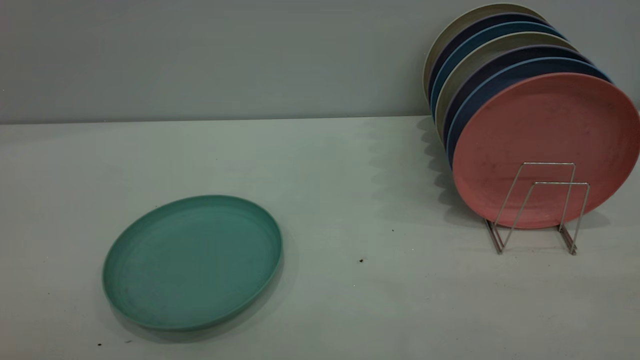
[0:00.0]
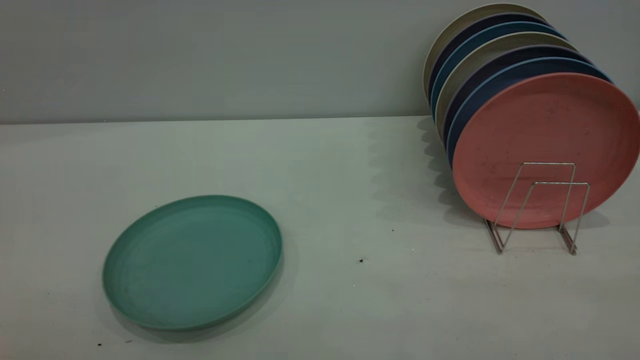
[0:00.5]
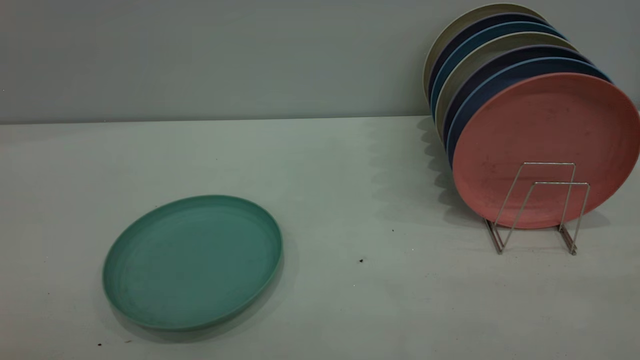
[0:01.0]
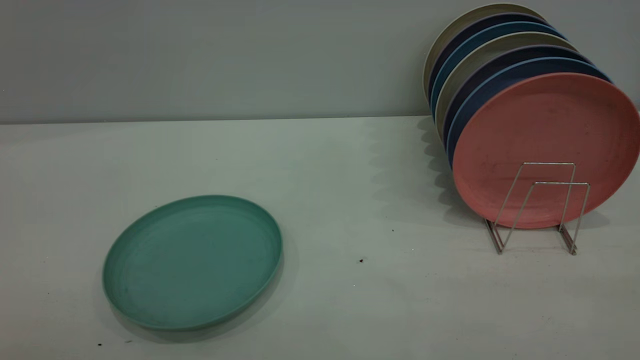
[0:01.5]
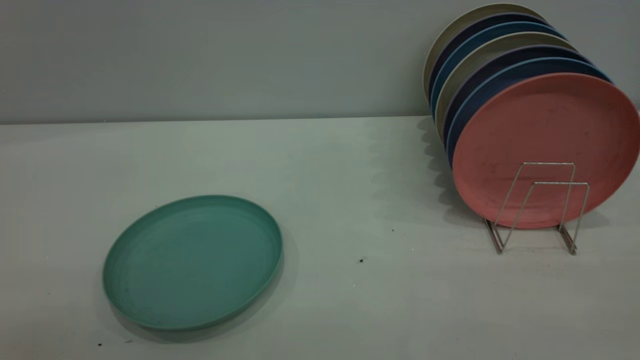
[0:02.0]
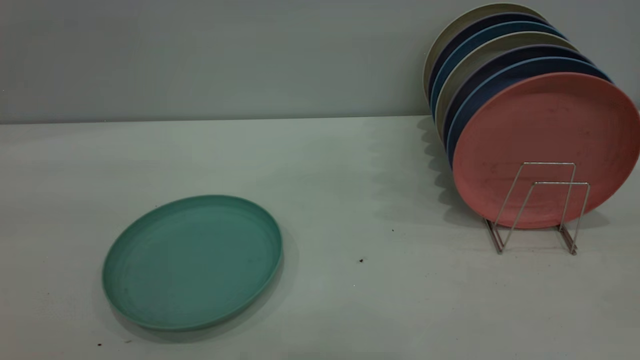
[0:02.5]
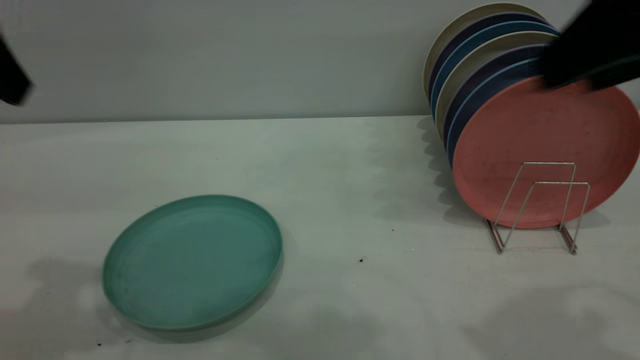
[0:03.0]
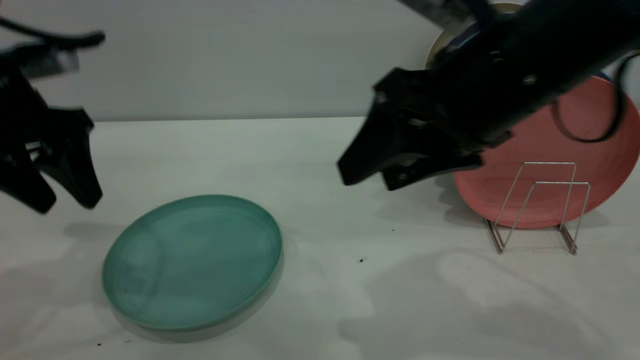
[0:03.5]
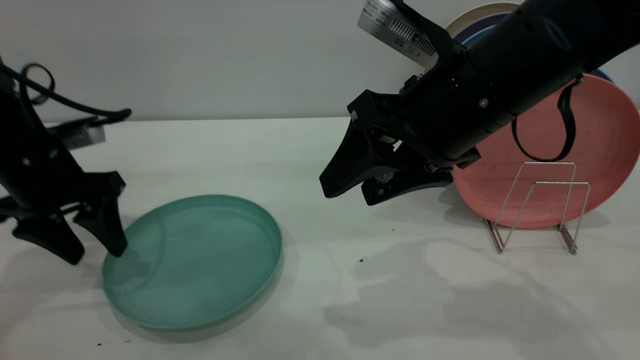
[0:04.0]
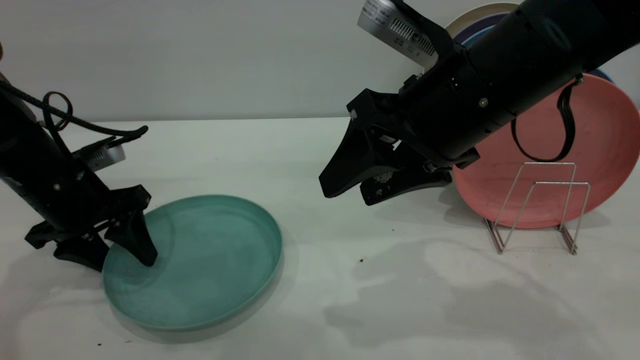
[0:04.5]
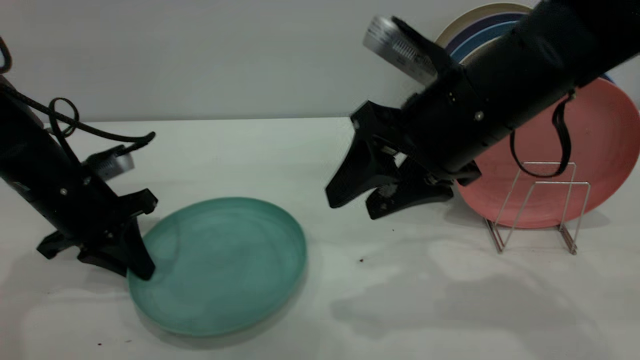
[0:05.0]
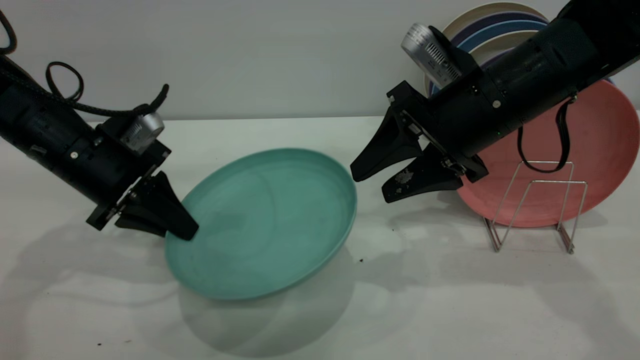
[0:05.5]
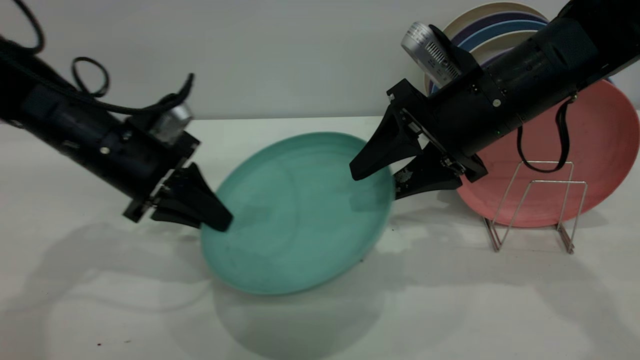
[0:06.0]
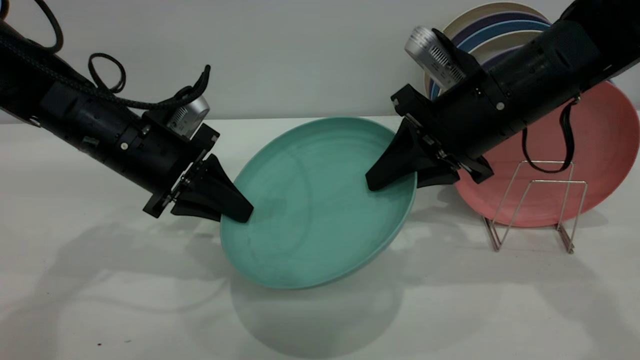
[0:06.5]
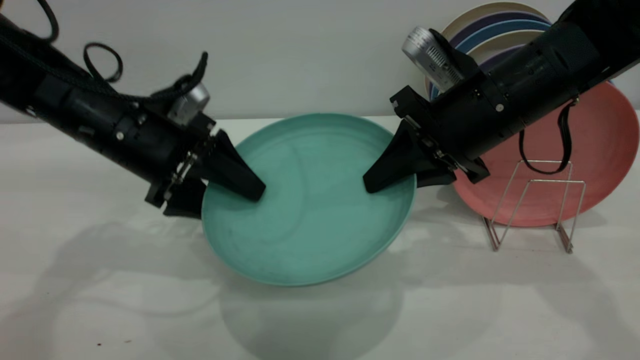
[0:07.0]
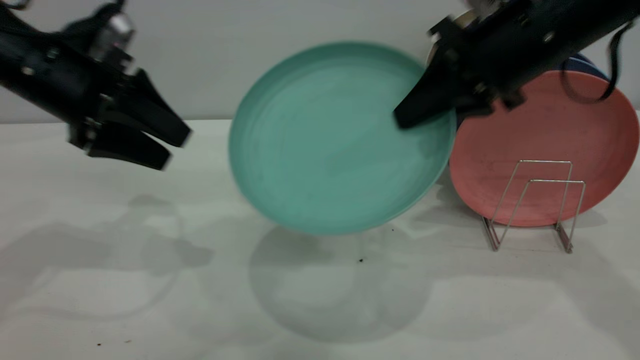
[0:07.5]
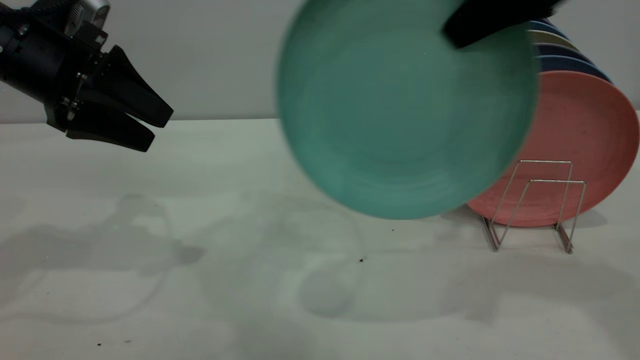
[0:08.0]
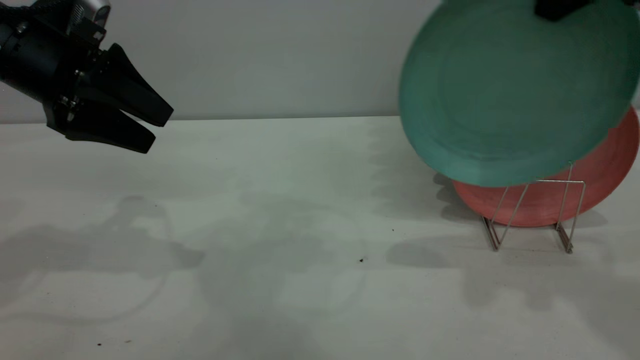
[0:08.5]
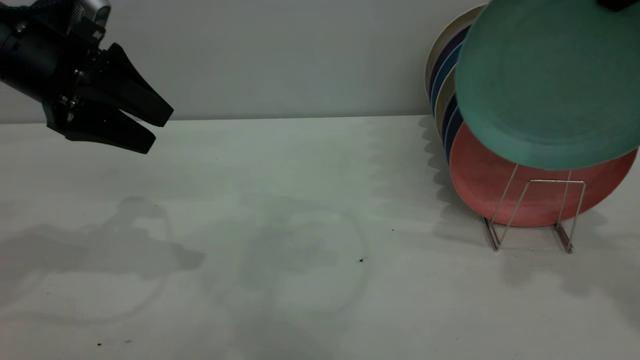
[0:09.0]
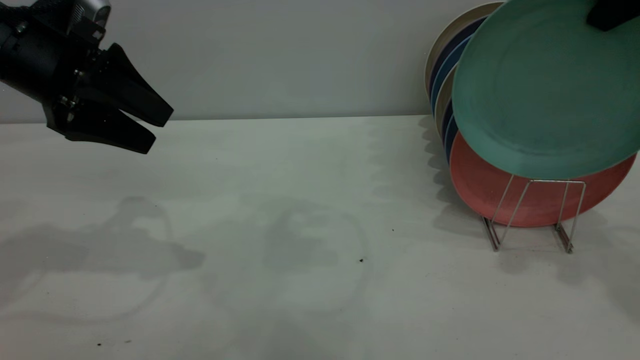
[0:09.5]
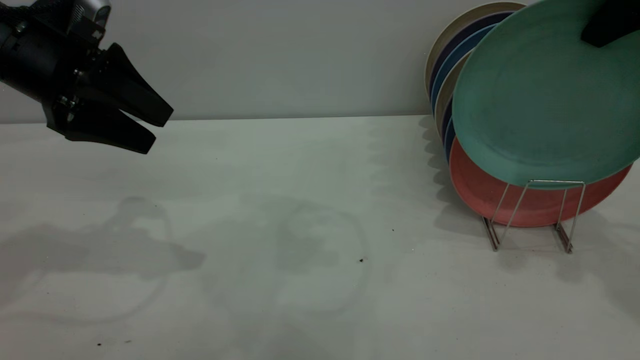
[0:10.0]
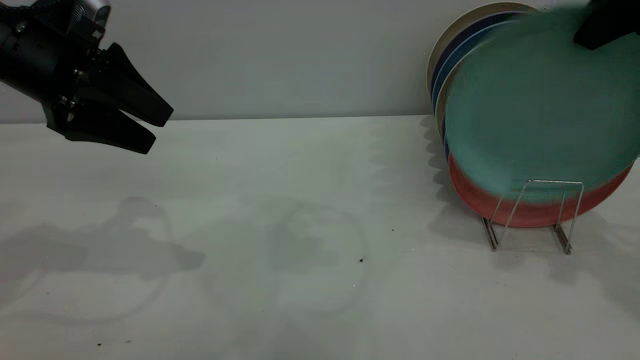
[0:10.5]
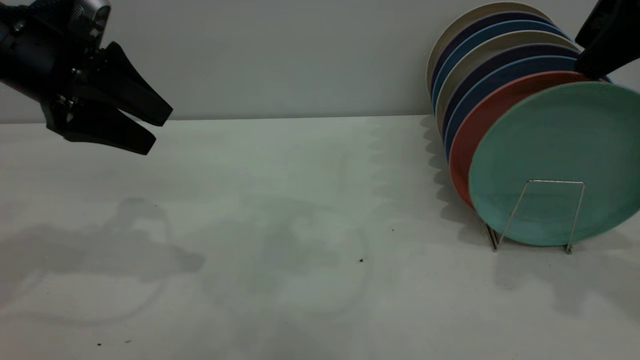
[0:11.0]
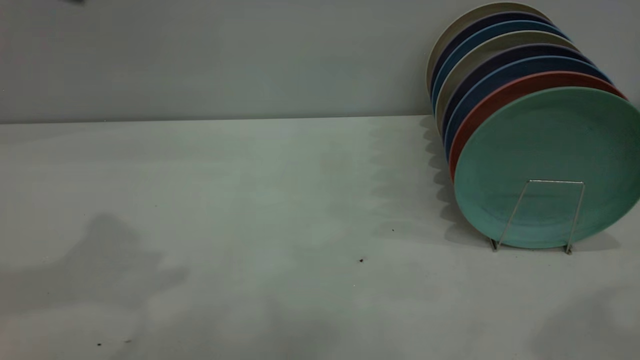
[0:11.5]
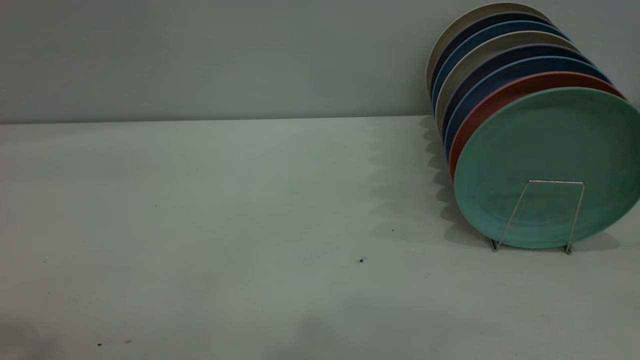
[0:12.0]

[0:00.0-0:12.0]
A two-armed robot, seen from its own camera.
Task of the whole recording: the left gripper grasp the green plate, the left gripper pass the green plate to the right gripper, and the right gripper place the green plate on the plate rack.
Step, 0.0 to 5.0 s: Pick up the plate with the left gripper.
Step, 5.5 to 7.5 s: Pass the plate from the left gripper to the right gripper.
Step, 8.0 to 11.0 s: Place the plate on the shelf.
2.0 to 4.0 s: The right gripper heads forward, to the left and downward, covering roughly 40 cm, and opens up. Meanwhile the left gripper goes about 40 cm forward and downward.
4.0 to 6.0 s: The left gripper travels to the right by about 10 cm, and closes; the right gripper travels forward by roughly 5 cm.
6.0 to 8.0 s: The left gripper moves upward and to the left, approximately 10 cm, and opens its fingers. The right gripper heads upward, covering roughly 15 cm, and closes up.
8.0 to 10.0 s: The right gripper shifts approximately 10 cm to the right.
10.0 to 12.0 s: The right gripper moves backward, roughly 25 cm, and opens. Meanwhile the left gripper heads upward and backward, covering roughly 35 cm.

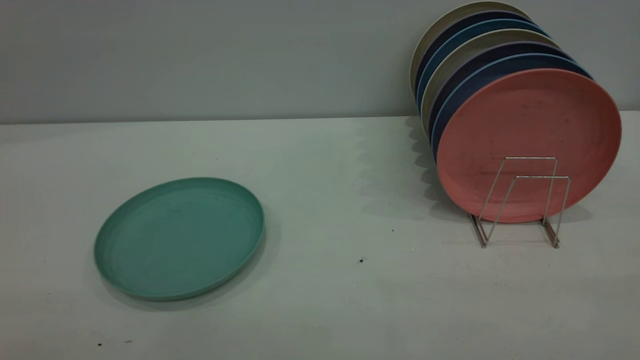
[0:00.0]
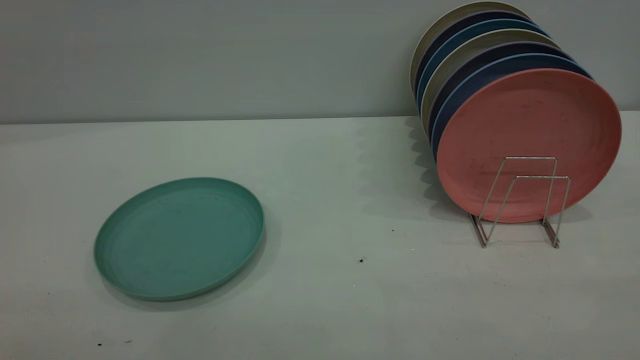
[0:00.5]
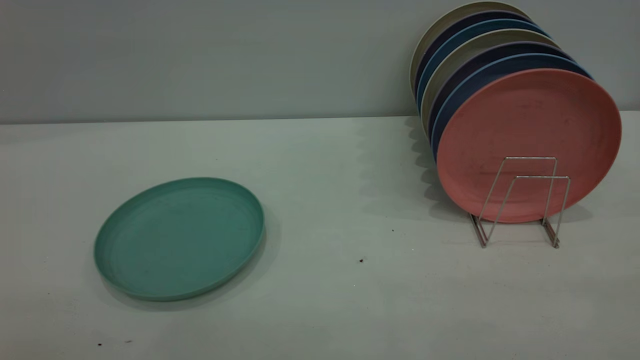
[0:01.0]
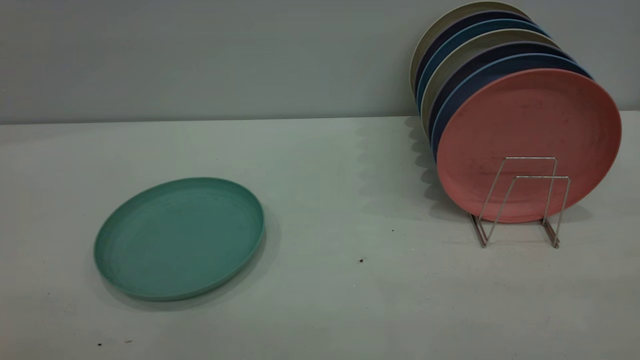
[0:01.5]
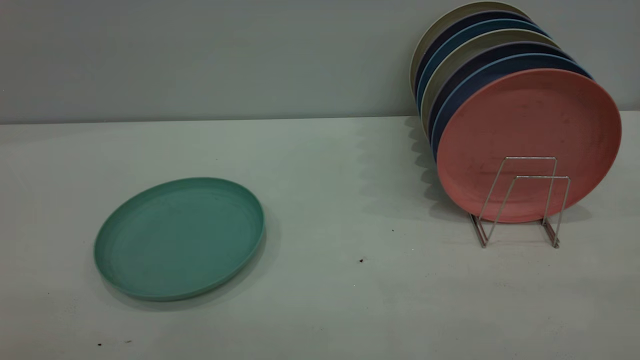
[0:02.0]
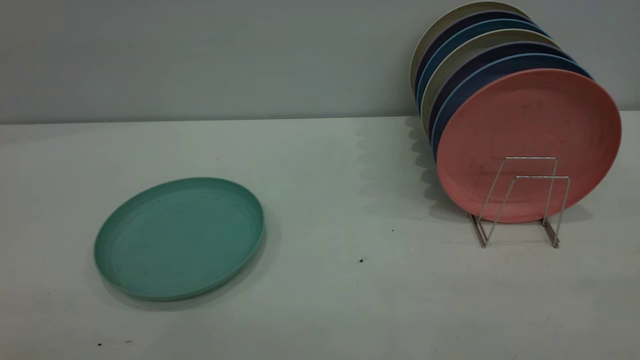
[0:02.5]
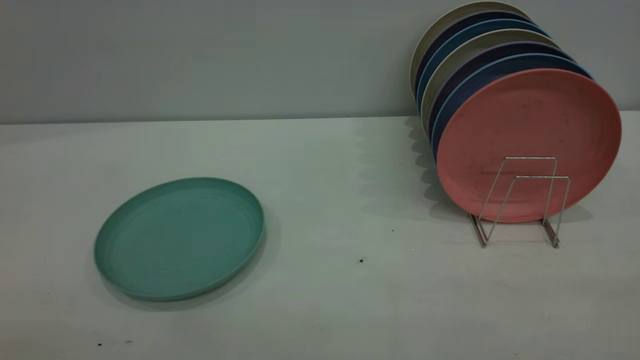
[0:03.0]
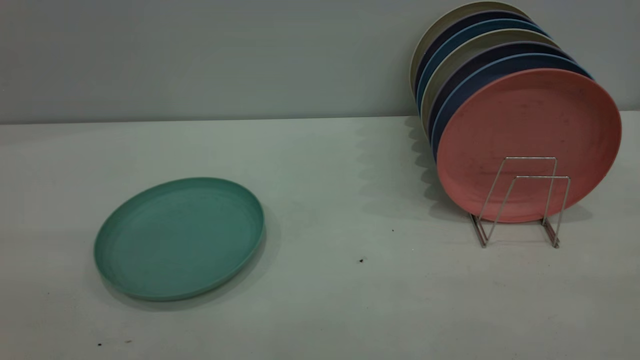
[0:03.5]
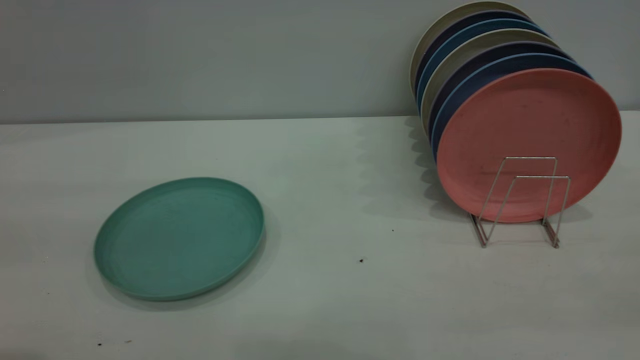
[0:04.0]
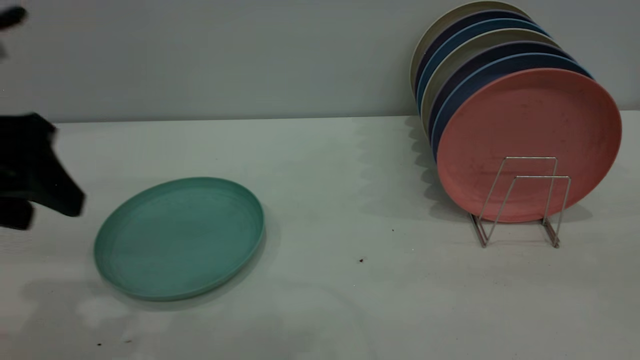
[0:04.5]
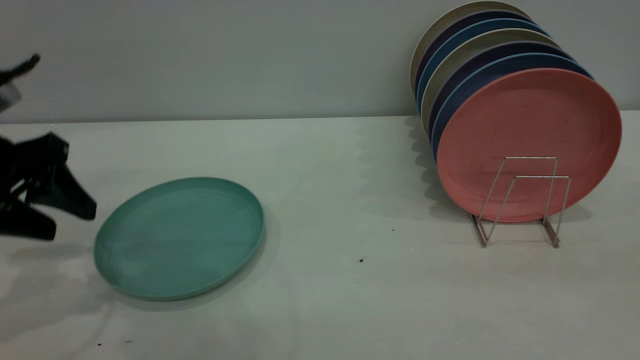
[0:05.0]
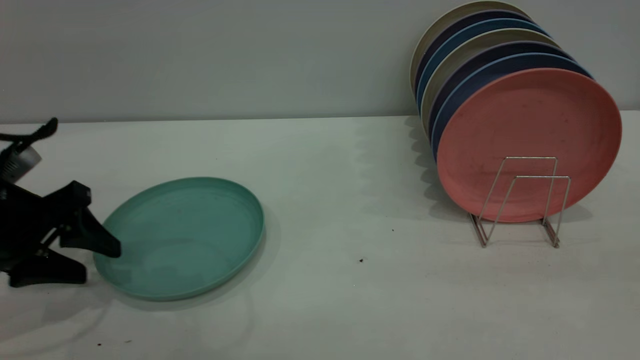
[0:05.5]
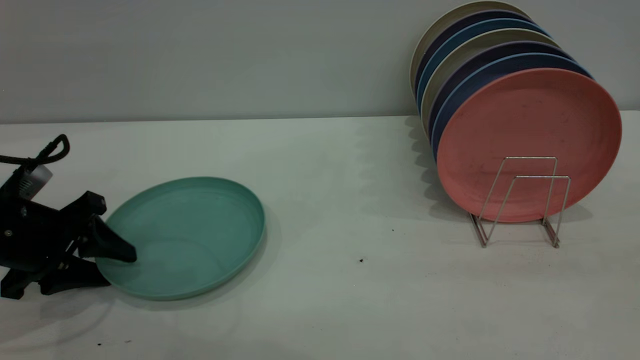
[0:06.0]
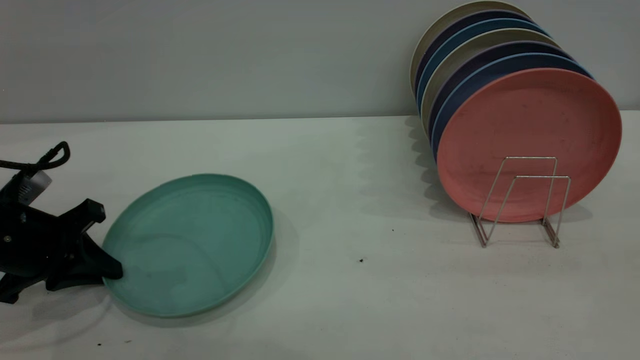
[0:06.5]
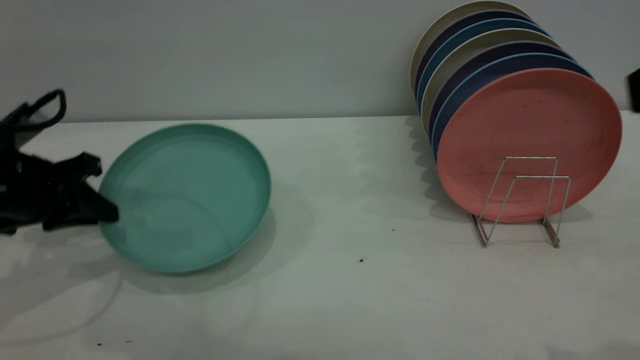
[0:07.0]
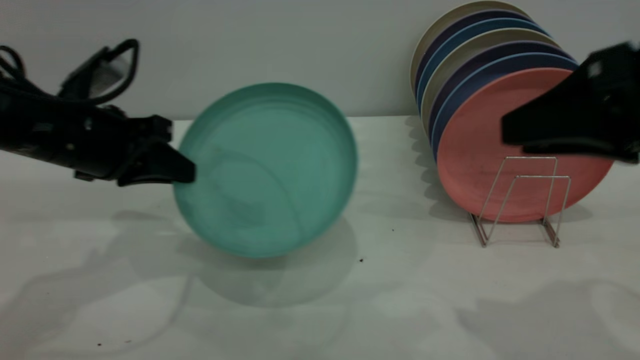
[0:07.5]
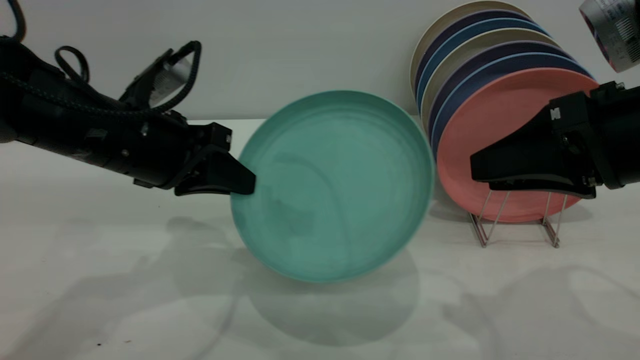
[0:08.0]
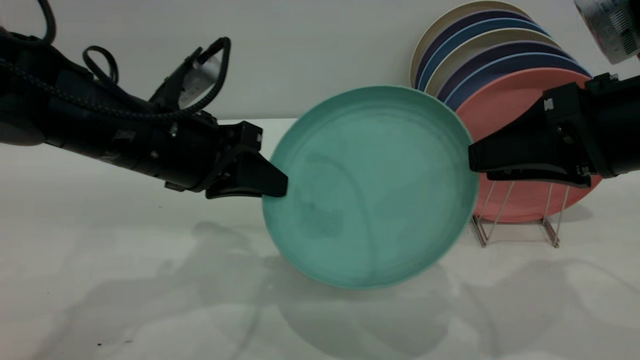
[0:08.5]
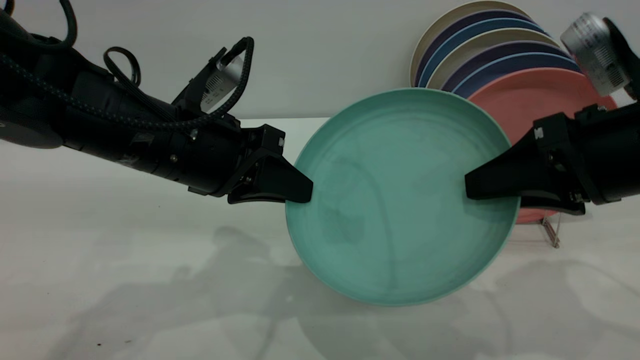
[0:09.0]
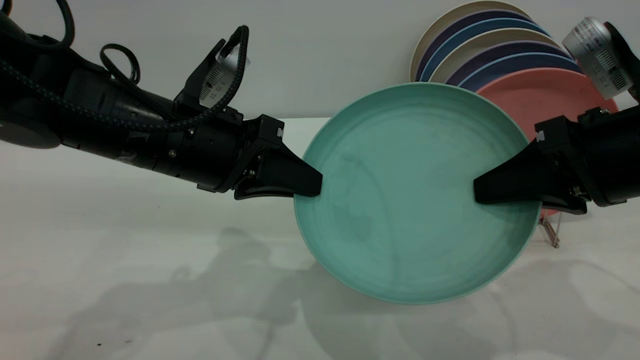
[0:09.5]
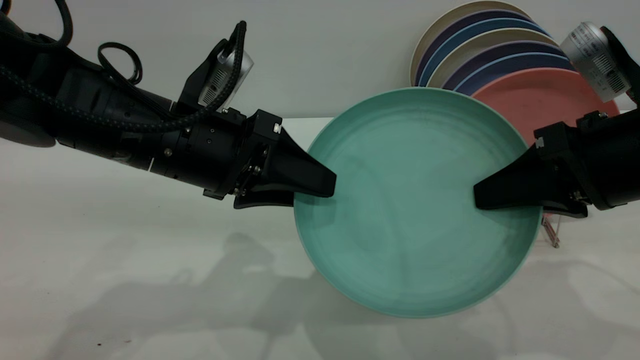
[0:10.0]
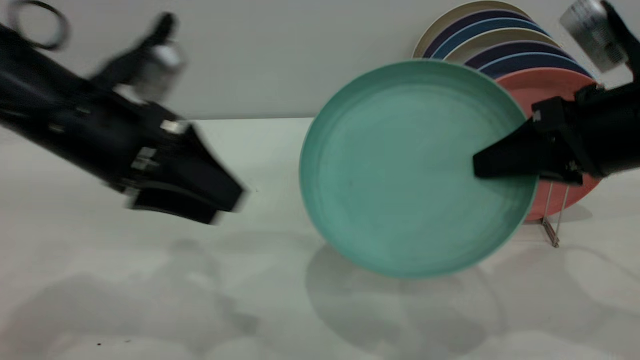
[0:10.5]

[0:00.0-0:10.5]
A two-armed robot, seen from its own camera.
Task of the whole recording: the left gripper grasp the green plate, the left gripper pass the green plate to the right gripper, and the right gripper place the green plate on the plate rack.
Step, 0.0 to 6.5 s: Pick up the plate with the left gripper.
0.0 to 2.0 s: Both grippers stay put.
4.0 to 6.5 s: The left gripper goes approximately 30 cm downward and forward, and closes. The right gripper travels forward by about 5 cm.
6.5 to 8.5 s: The left gripper moves to the right and upward, roughly 20 cm, while the right gripper travels forward and downward by some 20 cm.
8.5 to 10.5 s: The left gripper moves some 5 cm, and opens up. Meanwhile the right gripper closes its fingers.
